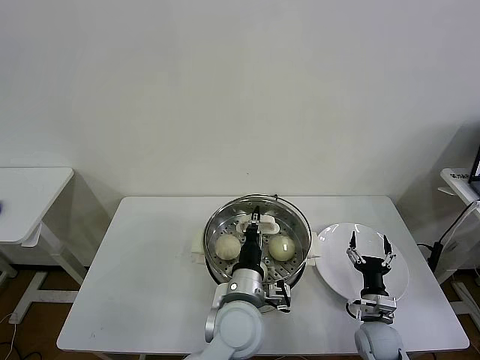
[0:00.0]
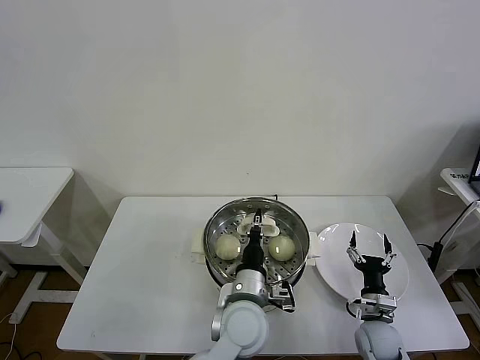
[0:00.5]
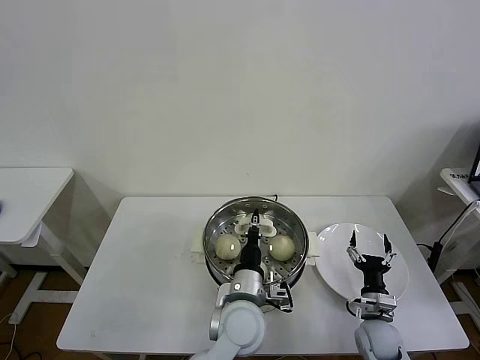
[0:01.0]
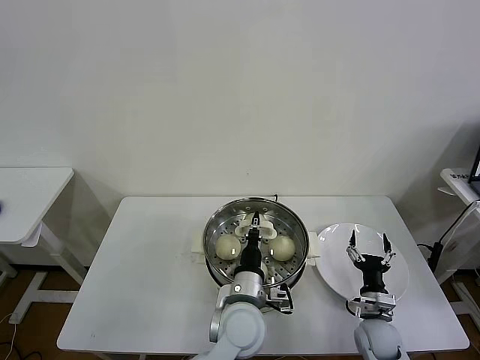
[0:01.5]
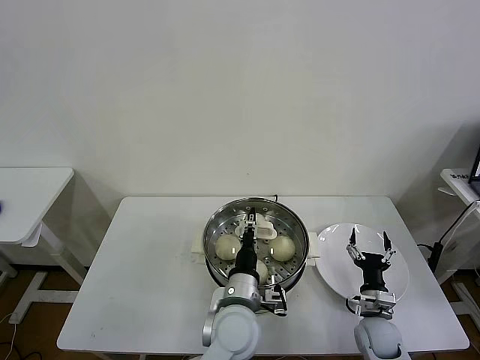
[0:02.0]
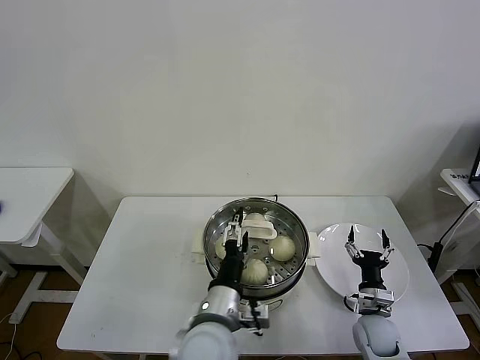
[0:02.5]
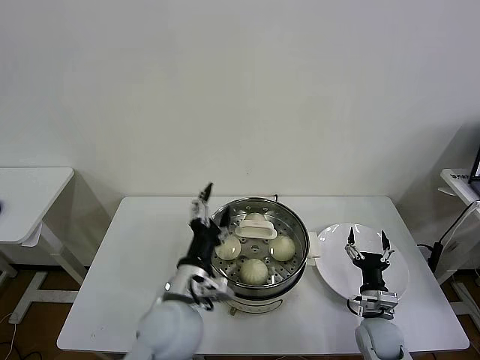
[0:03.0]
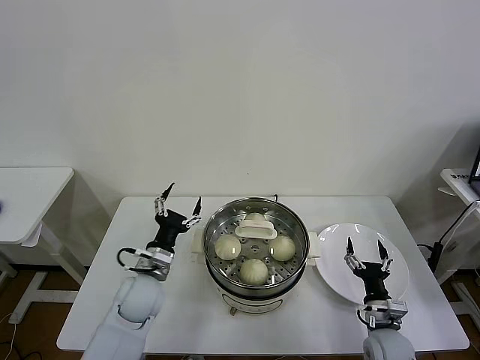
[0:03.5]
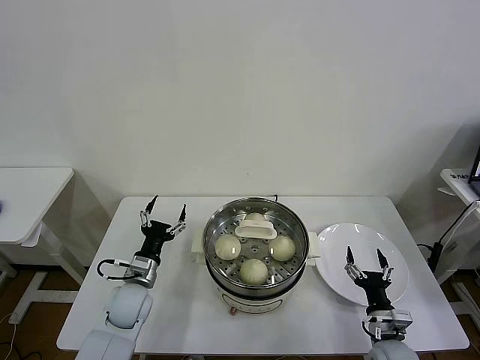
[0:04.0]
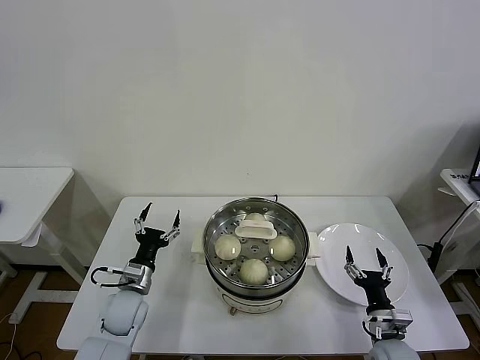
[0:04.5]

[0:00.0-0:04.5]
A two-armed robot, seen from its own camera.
Task of the whole recording: take steamed baozi put them in steamer then cover it.
Step, 0:00.0 to 0:02.0: Place the pot lid on the steamer with left gripper.
0:00.0 to 0:02.0: The grippers move only a little.
0:02.0 to 0:04.5: The right gripper heads backward, covering some 5 cm. The left gripper moves to the left, about 25 cm, and opens its fingers.
